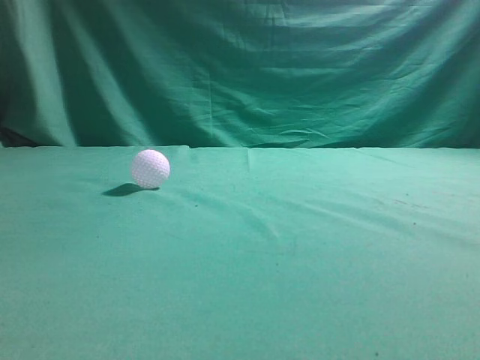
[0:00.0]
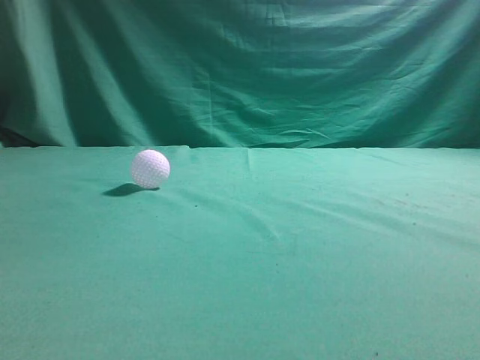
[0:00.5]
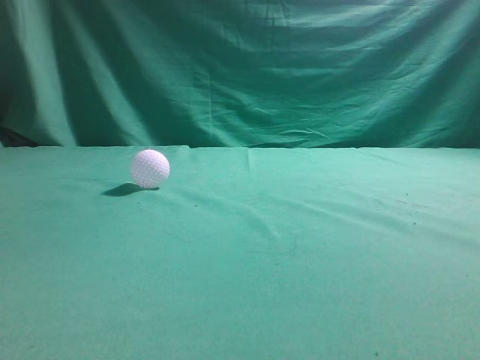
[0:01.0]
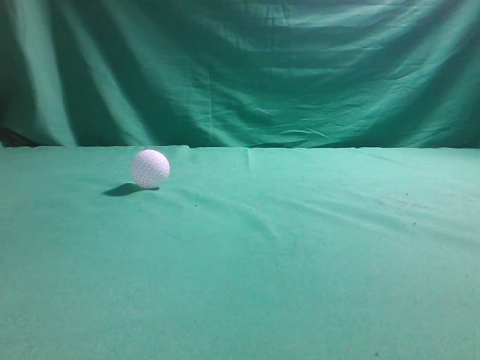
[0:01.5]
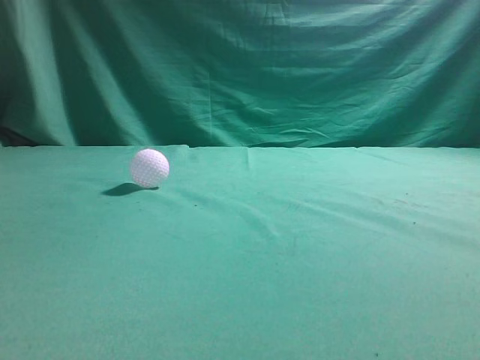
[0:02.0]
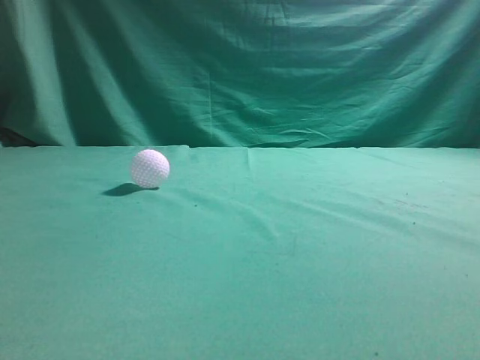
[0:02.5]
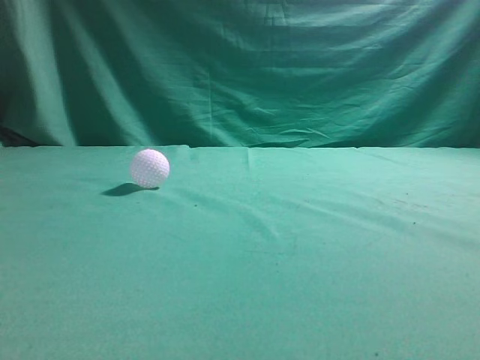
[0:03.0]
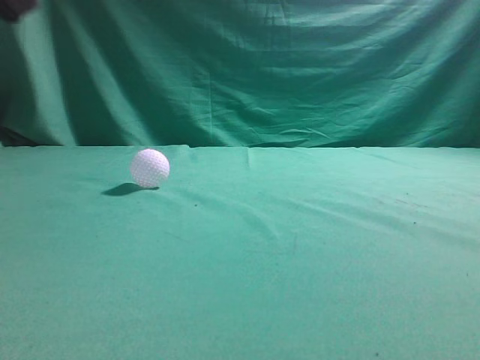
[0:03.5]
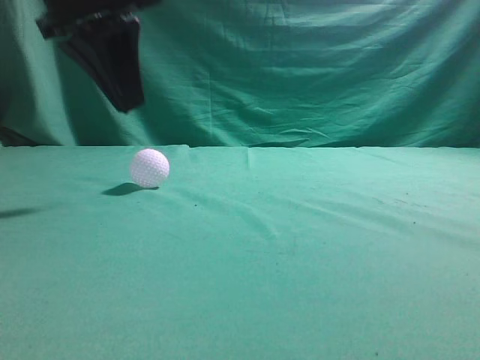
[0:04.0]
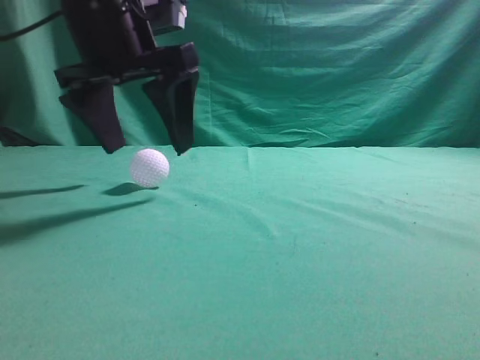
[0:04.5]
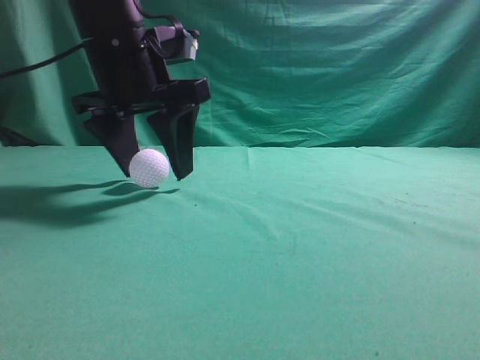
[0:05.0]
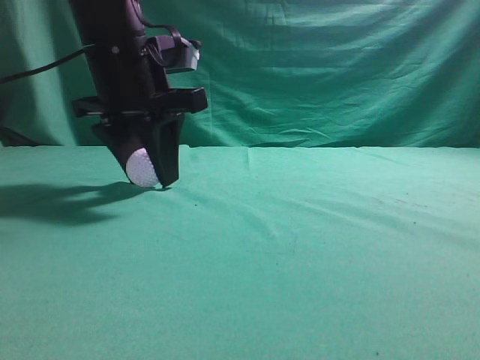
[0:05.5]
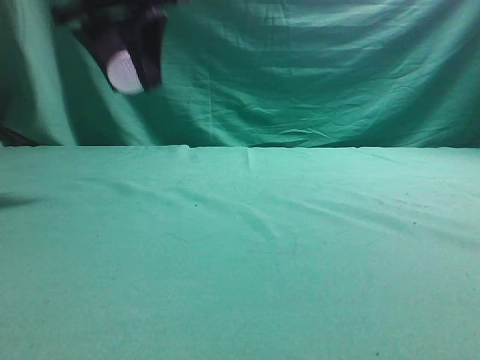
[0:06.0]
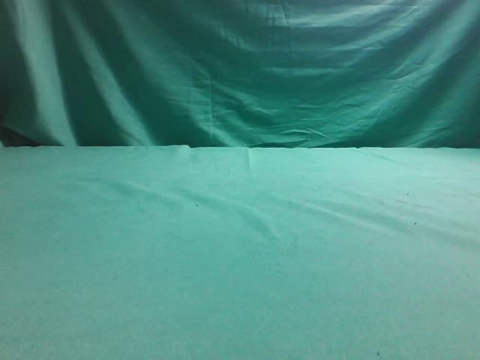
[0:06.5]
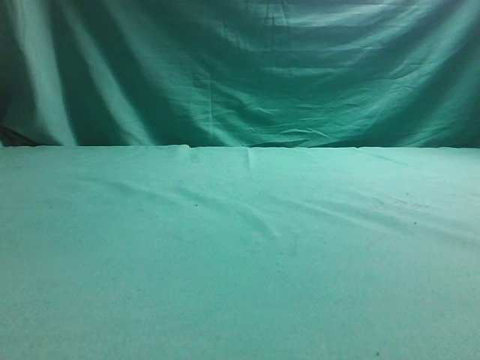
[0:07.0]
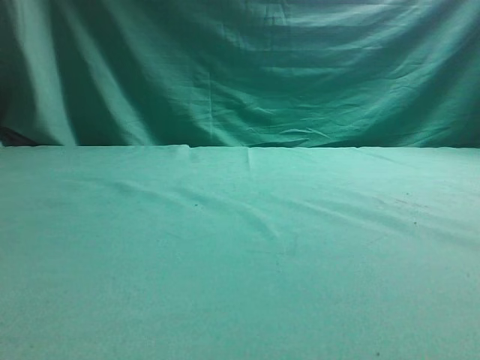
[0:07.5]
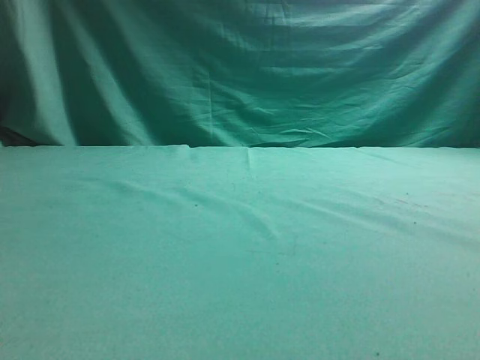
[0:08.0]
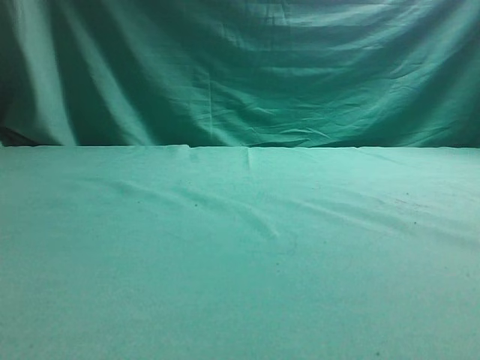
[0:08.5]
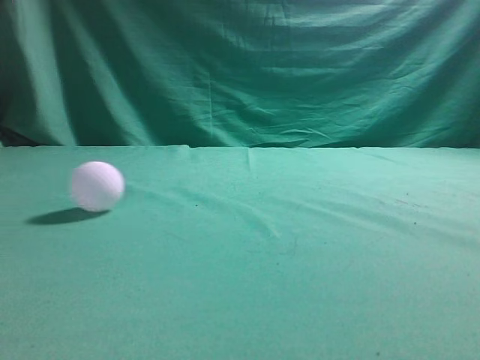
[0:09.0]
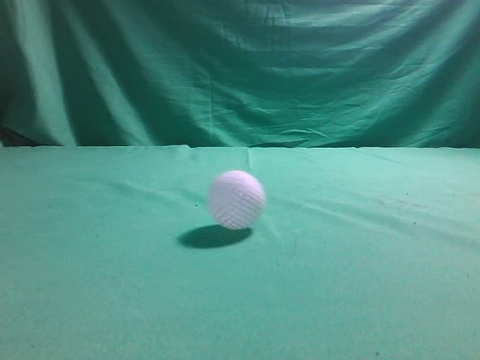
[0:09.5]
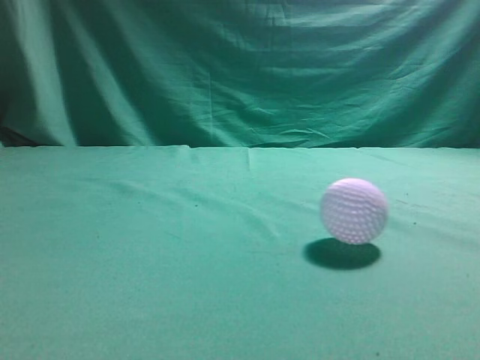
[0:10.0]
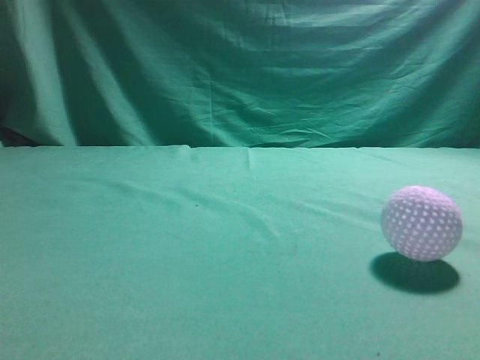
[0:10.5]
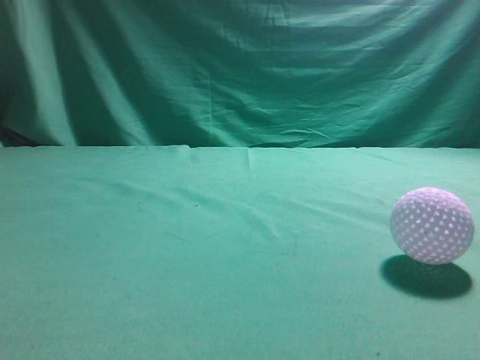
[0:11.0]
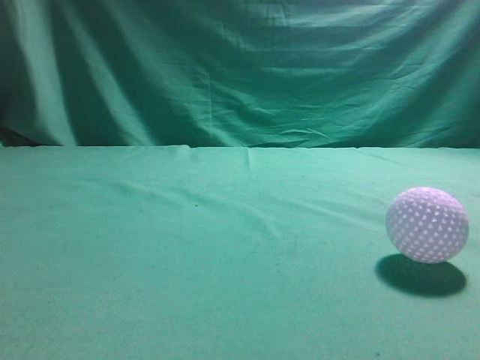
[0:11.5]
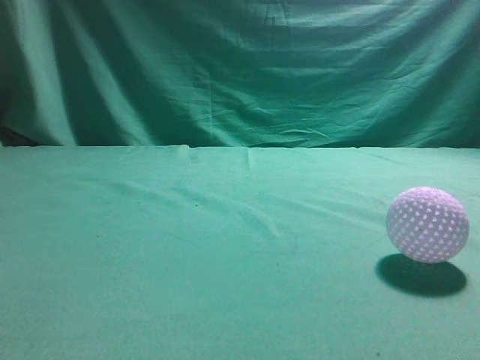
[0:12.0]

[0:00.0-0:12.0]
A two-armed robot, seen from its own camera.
Task of the whole recording: pick up the ball and place it on the plate, then pick up the ball from the plate and put it in the center of the table.
Step, 0:00.0 to 0:05.5: Grab the spherical object with your left arm.
Step, 0:06.0 to 0:08.0: Place the sphere on the white object.
0:02.0 to 0:04.0: The left gripper shifts approximately 30 cm forward and to the right.
0:04.0 to 0:06.0: The left gripper travels forward by some 5 cm, moves approximately 5 cm downward and comes back, and opens its fingers.
0:06.0 to 0:08.0: The left gripper moves to the left, some 25 cm.
0:10.0 to 0:12.0: The right gripper heads to the left, upward and forward, covering roughly 15 cm.

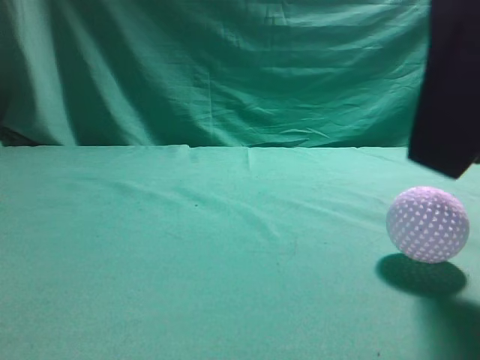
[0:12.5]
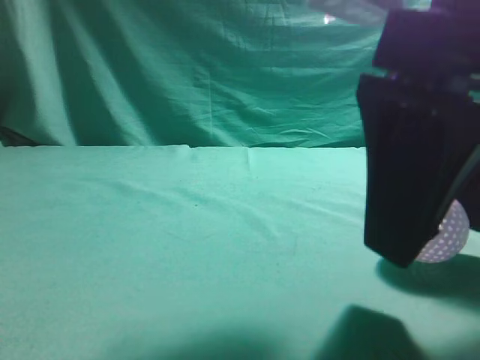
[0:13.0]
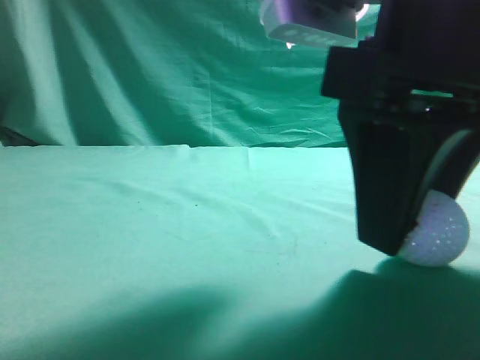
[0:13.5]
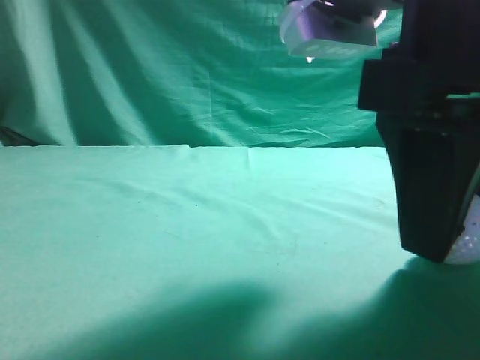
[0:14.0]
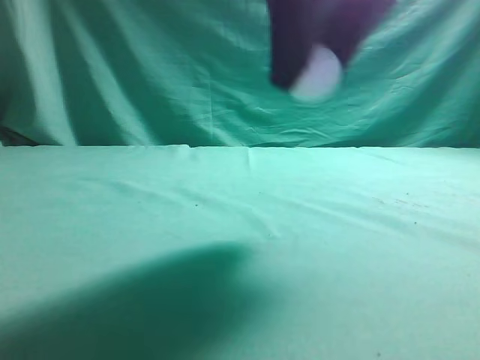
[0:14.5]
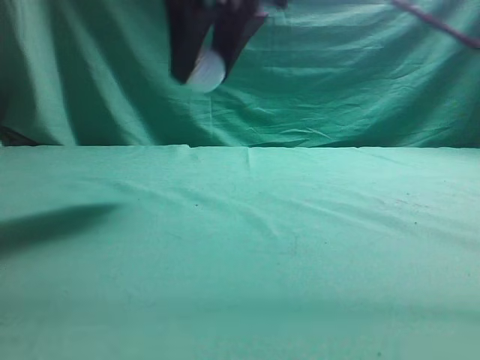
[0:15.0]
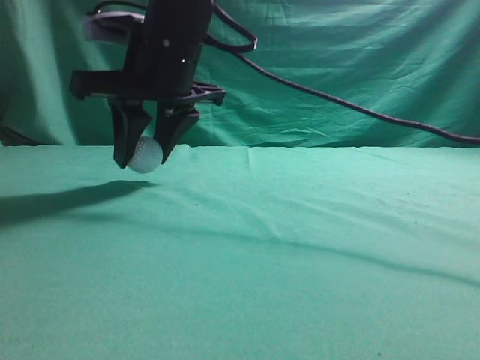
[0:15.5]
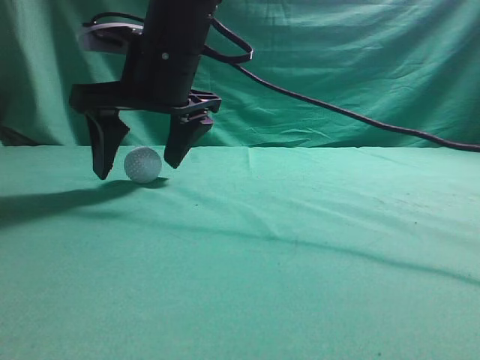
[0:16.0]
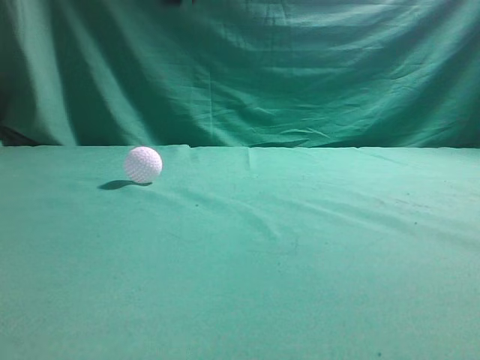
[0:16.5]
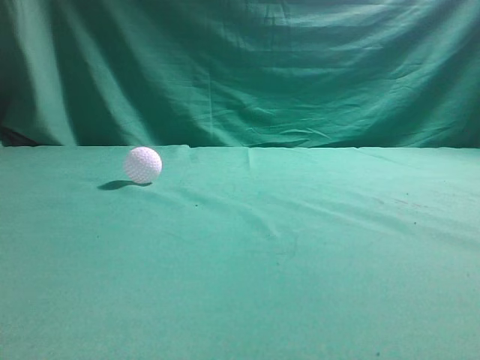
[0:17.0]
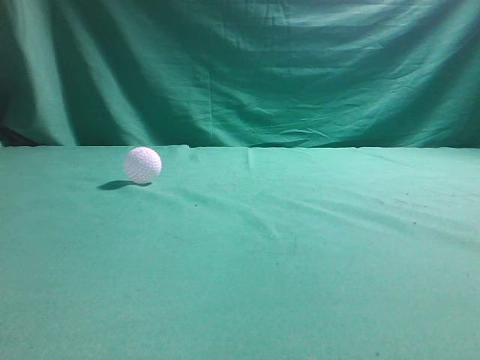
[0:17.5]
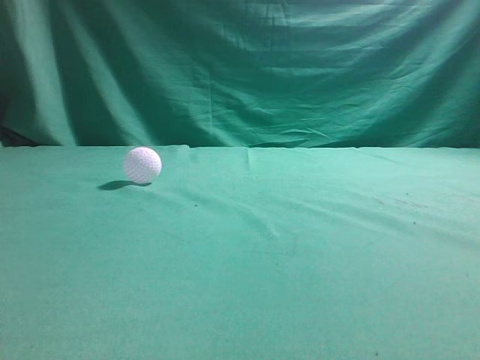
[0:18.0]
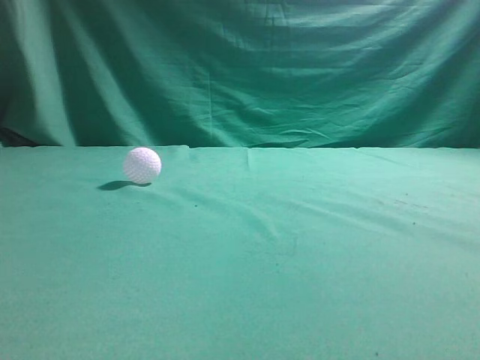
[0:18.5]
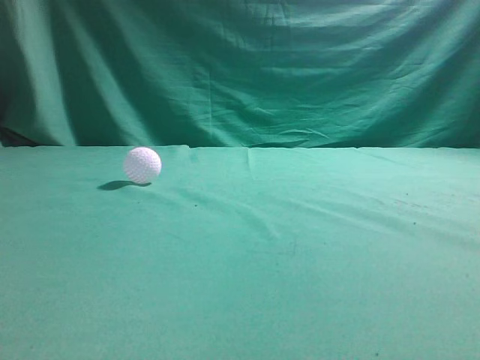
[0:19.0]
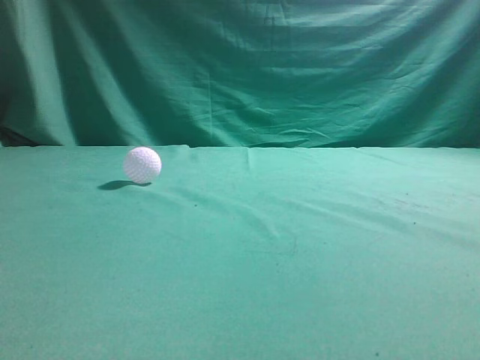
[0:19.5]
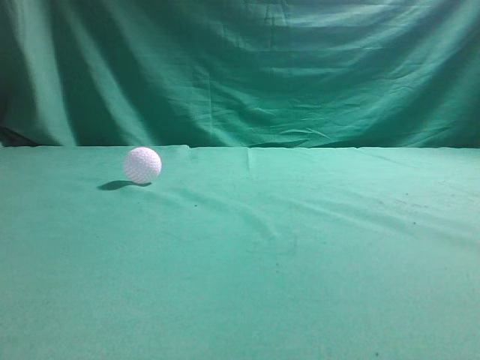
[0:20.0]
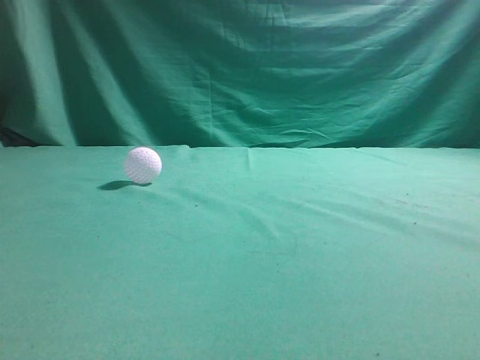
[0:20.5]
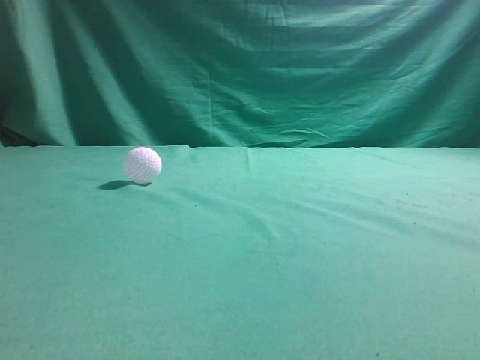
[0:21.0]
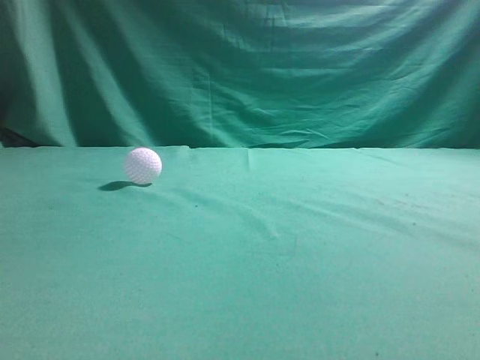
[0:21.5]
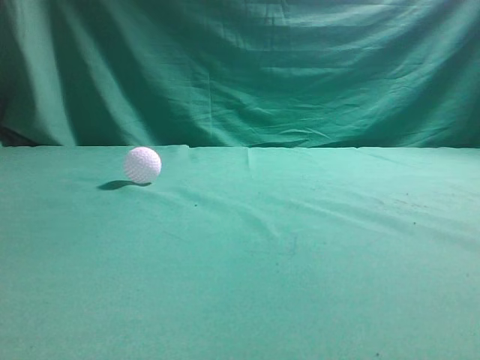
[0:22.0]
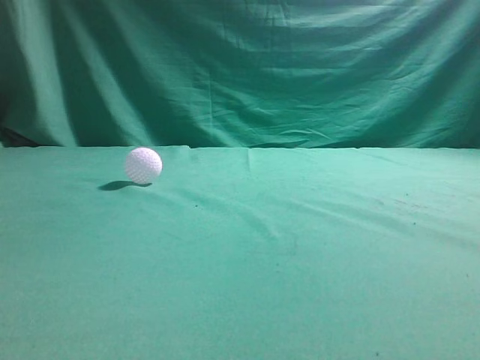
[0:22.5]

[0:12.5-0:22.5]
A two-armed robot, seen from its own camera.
Task of the whole recording: pick up the ball and place it on the plate, then pick up the ball from the plate and put it in the center of the table.
Step, 0:14.5 to 0:16.0: Put the picked-up object on the table.
0:12.5 to 0:14.5: The right gripper shifts approximately 10 cm forward and to the left, and opens, then closes again.
0:14.5 to 0:16.5: The right gripper moves to the left, forward and upward, approximately 15 cm, and closes its fingers.
